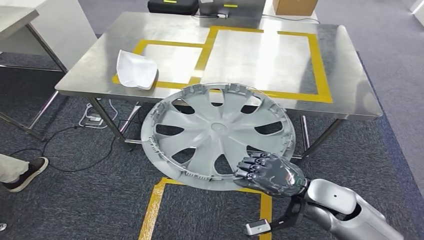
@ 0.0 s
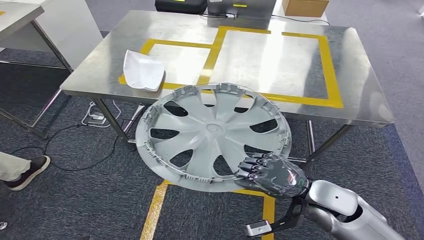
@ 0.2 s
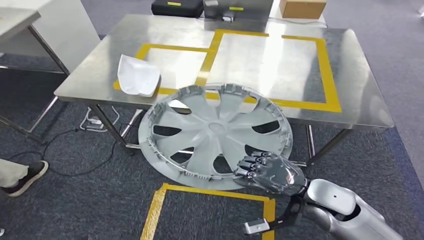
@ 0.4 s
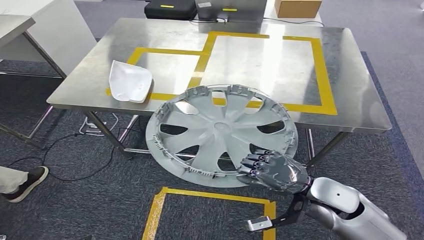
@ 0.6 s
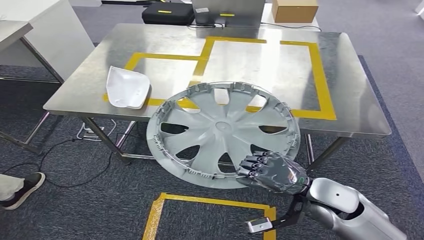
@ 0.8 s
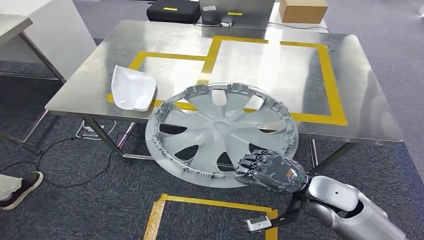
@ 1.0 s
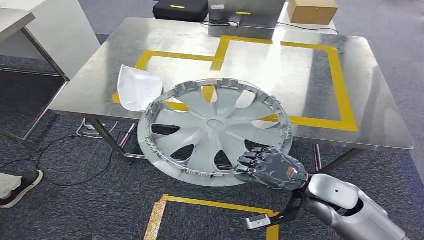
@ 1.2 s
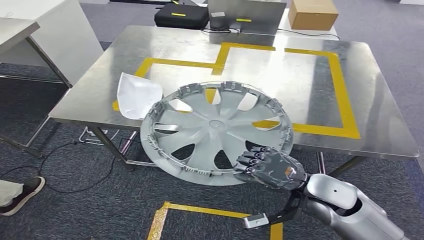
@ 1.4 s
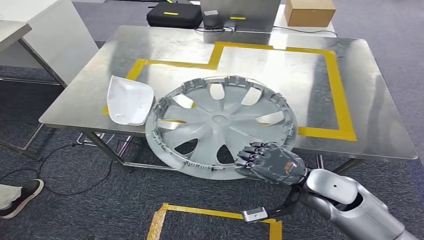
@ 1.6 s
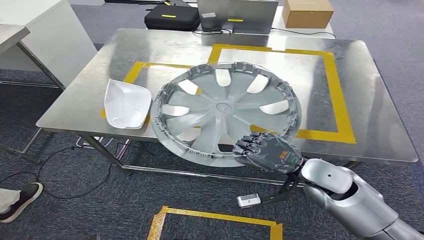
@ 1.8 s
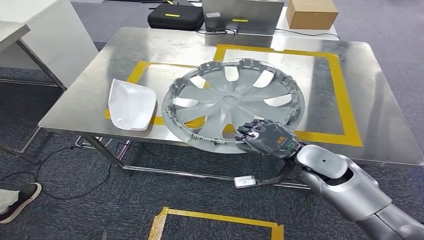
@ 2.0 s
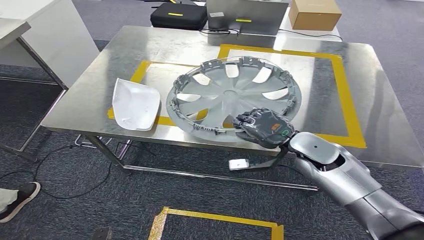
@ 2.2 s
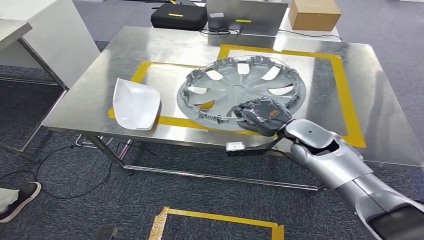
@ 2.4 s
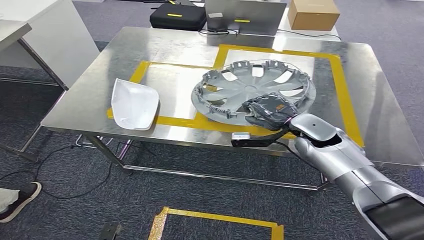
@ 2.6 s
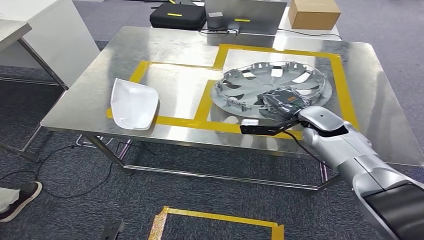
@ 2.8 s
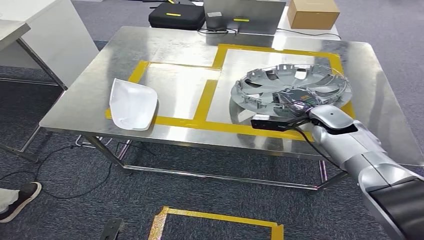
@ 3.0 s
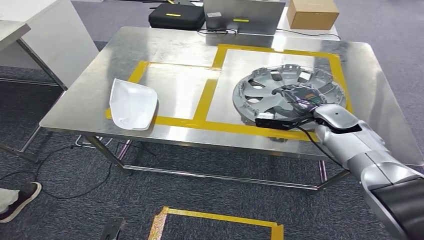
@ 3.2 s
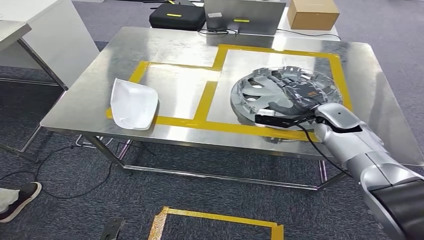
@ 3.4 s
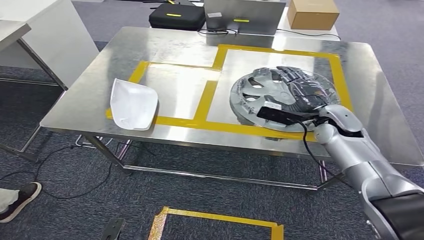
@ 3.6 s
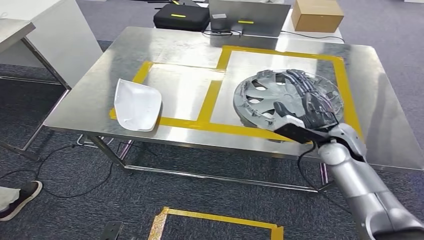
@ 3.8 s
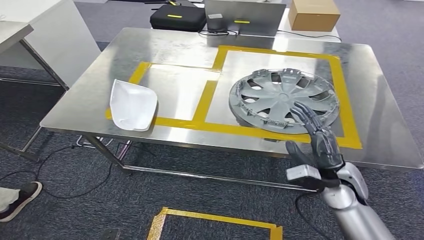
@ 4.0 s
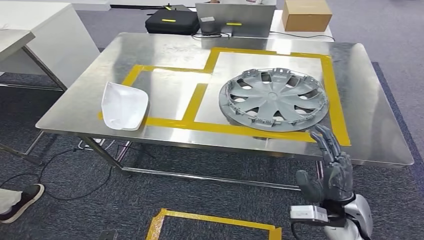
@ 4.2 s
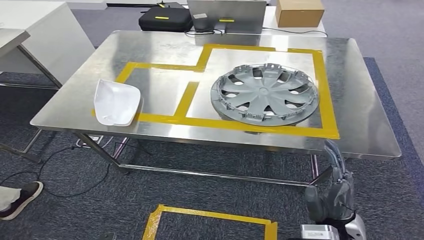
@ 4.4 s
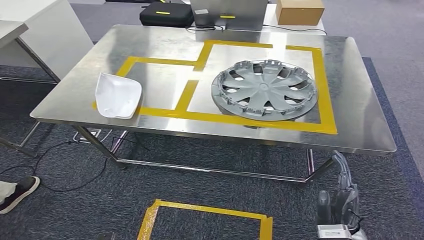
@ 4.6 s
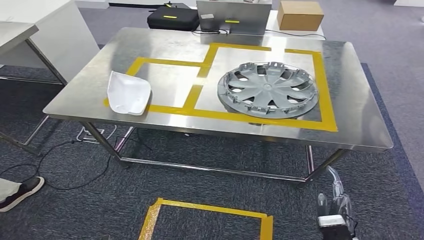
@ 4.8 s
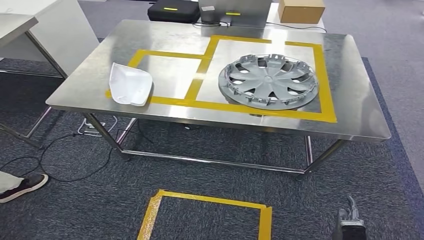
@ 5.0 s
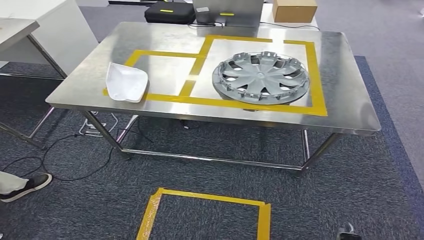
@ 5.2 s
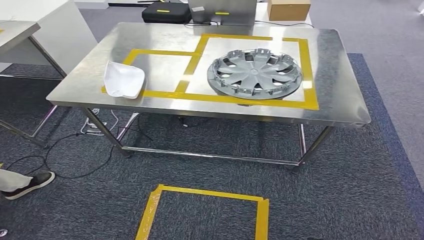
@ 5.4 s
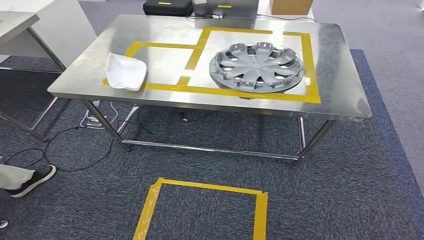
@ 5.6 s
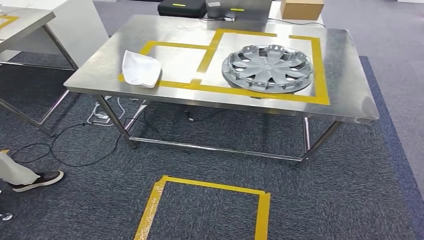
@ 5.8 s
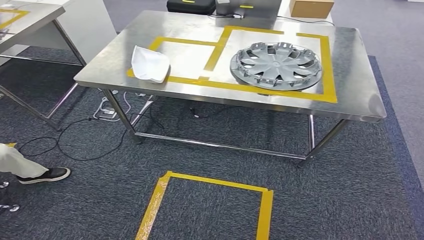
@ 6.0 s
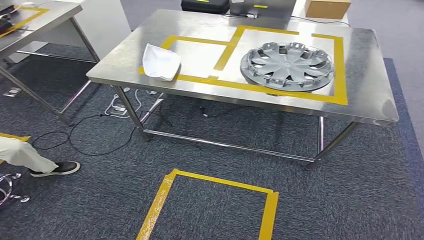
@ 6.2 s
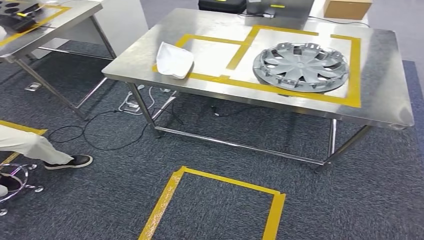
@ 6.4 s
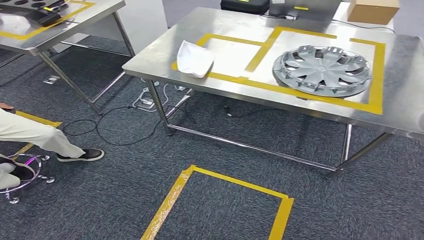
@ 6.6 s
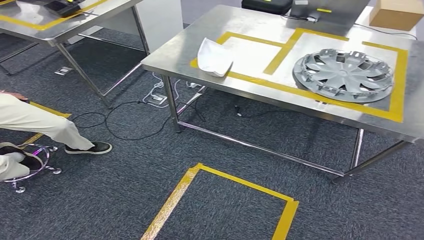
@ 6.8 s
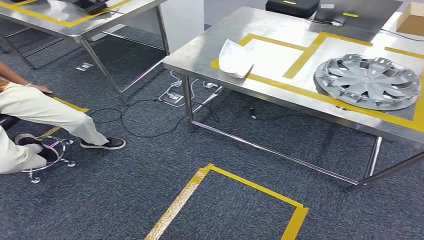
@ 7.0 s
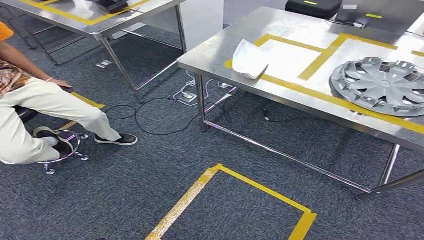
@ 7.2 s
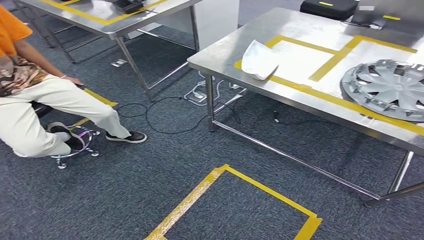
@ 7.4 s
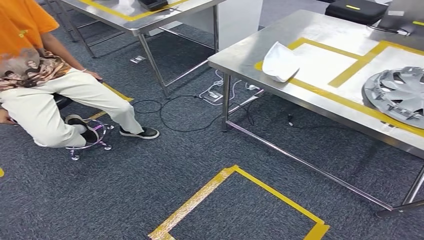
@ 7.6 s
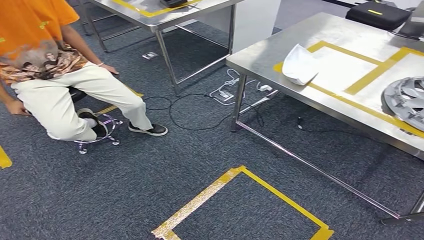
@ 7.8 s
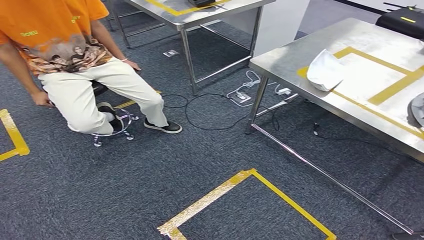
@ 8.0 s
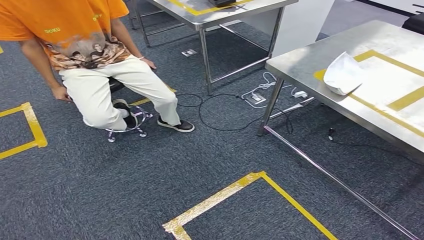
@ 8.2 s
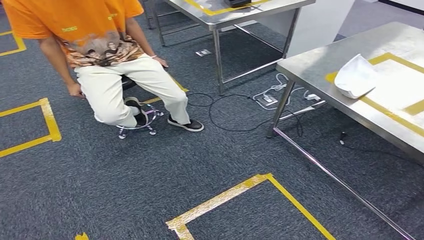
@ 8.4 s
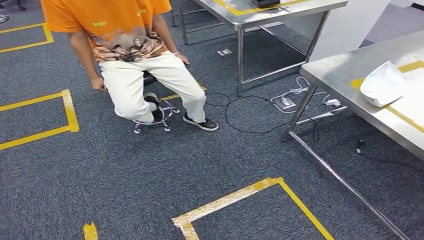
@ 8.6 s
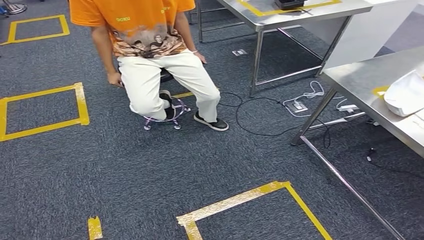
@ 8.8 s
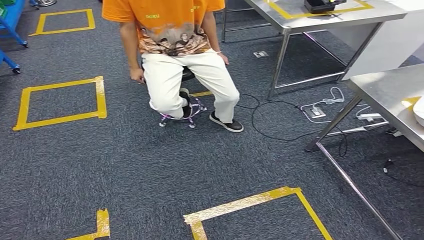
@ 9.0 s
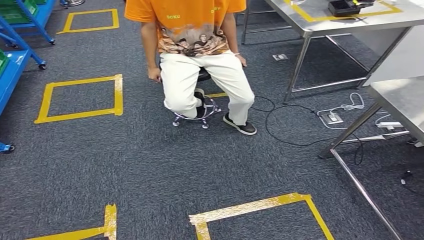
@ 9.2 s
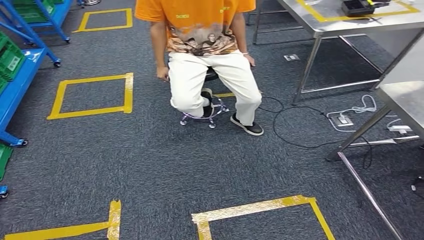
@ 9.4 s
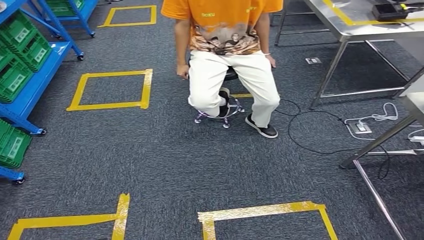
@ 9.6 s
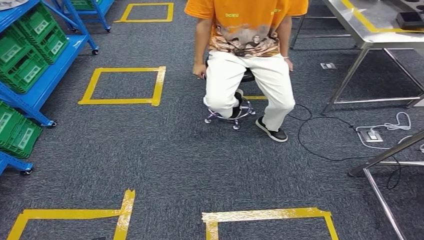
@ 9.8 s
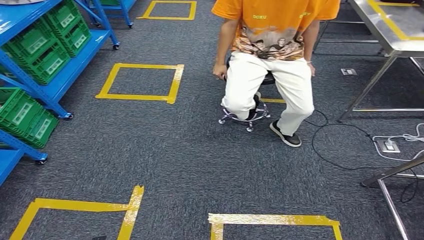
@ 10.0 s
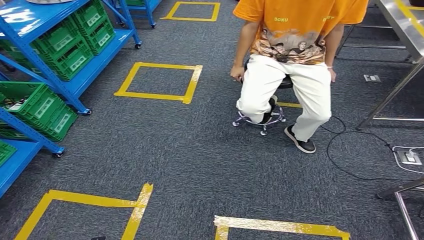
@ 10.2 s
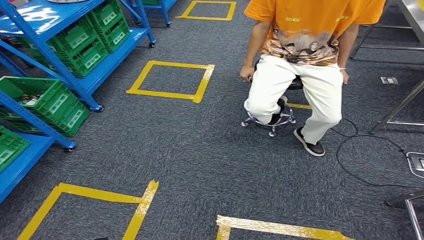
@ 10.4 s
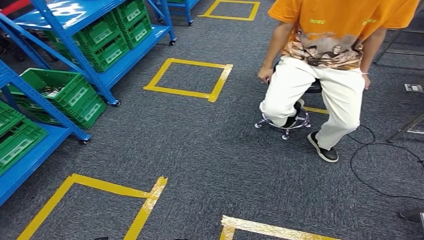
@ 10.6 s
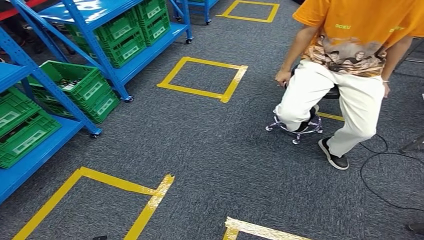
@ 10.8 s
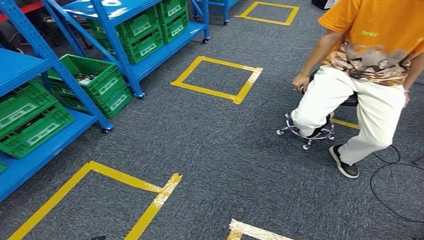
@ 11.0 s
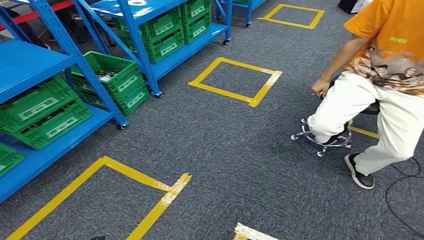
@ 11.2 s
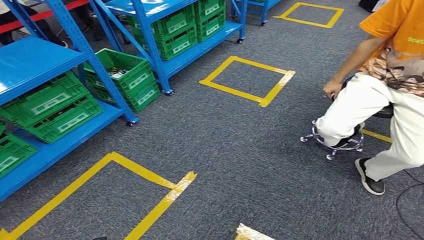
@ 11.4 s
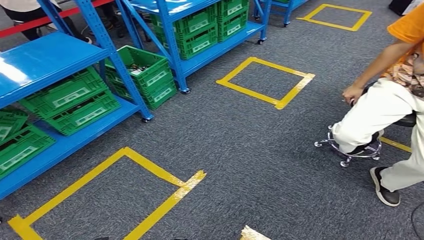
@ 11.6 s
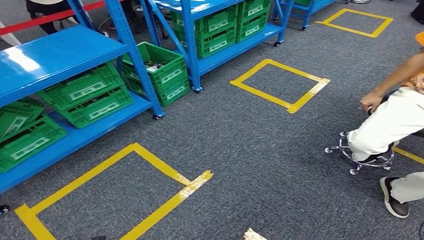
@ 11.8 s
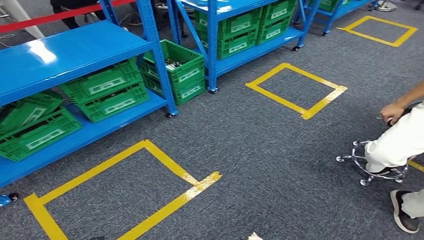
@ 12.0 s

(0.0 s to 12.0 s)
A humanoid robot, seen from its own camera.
Step, 0.0 s - 4.8 s: Insert the small component into the corresponding slot on the workbench.

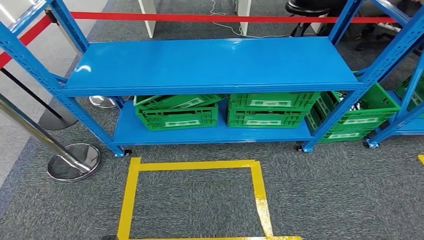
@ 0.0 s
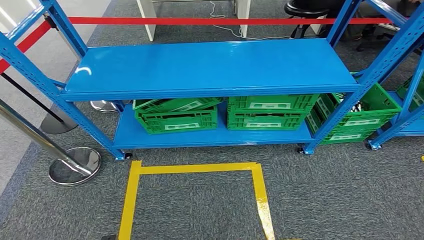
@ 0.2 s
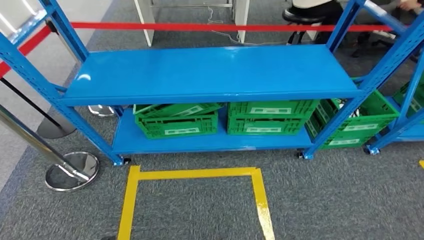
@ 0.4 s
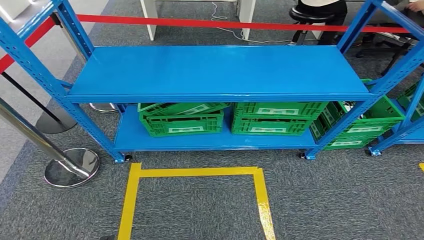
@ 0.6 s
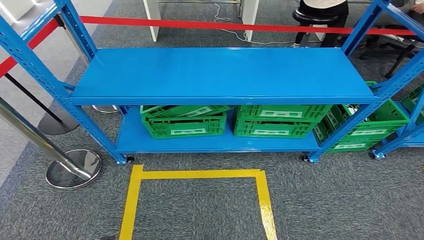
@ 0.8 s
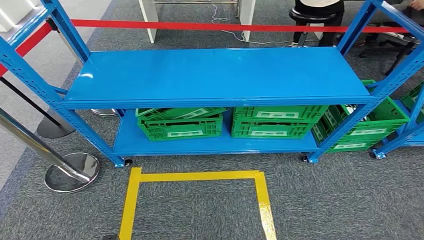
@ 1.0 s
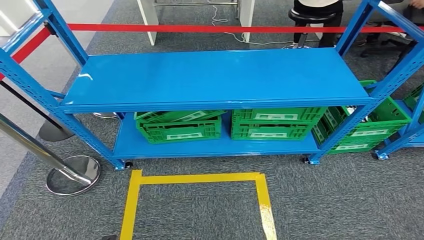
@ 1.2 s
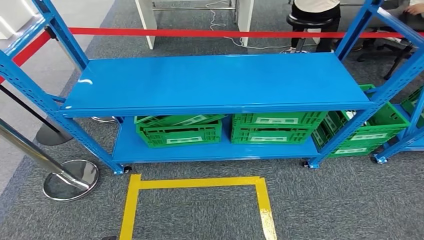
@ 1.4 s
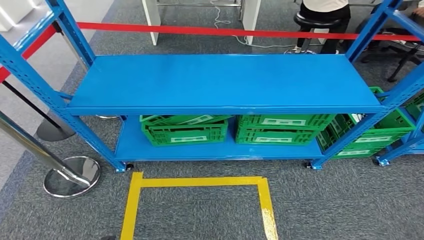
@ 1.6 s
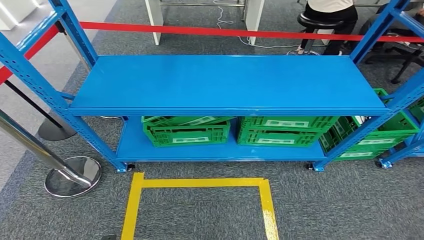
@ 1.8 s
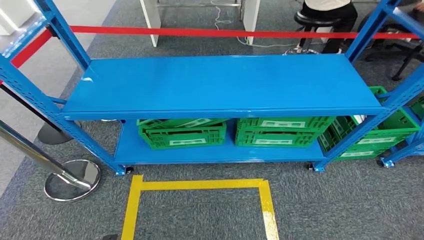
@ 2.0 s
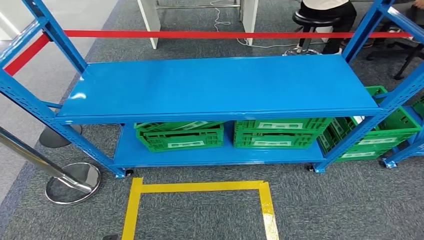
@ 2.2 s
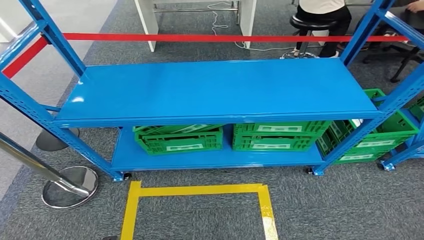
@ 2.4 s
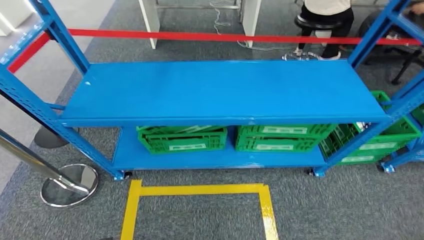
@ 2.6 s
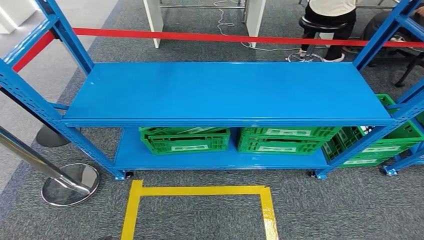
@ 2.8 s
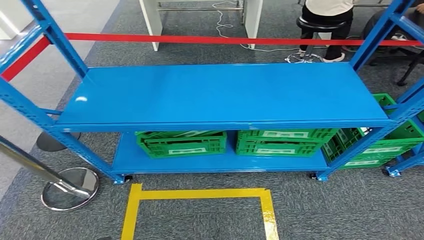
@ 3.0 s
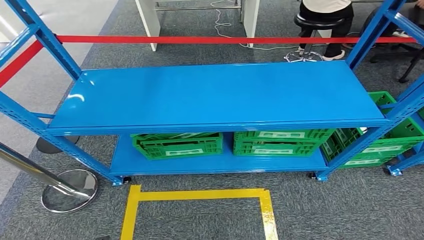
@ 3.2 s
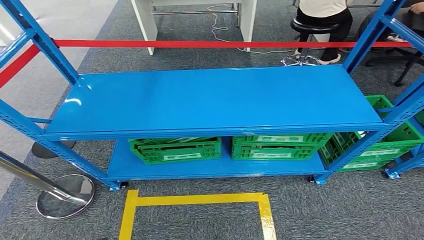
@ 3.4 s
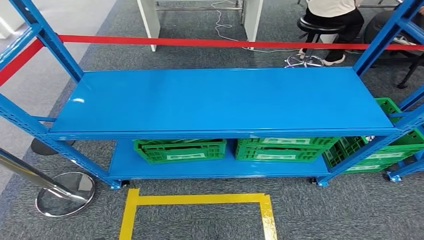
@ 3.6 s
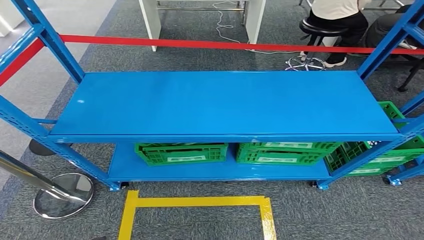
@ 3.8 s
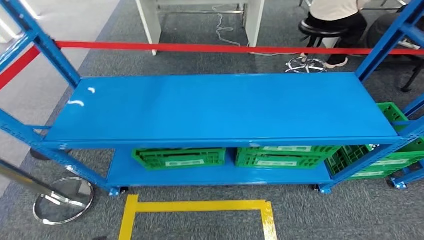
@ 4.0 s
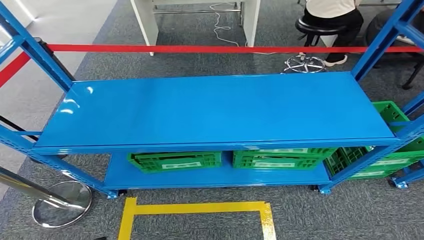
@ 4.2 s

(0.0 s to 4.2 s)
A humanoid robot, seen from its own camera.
Step, 0.0 s - 4.0 s: Return to the initial position at the workbench.

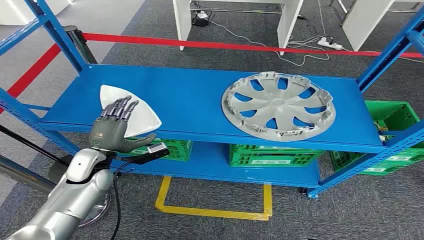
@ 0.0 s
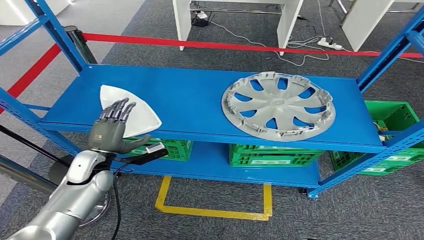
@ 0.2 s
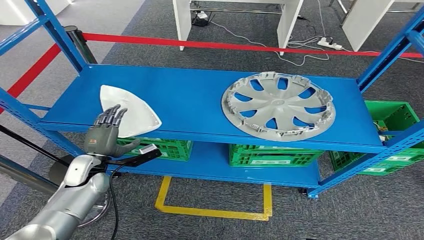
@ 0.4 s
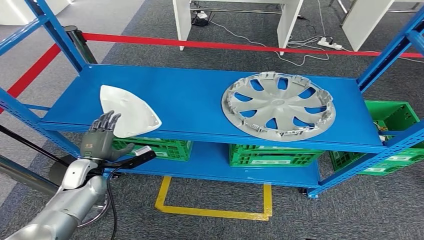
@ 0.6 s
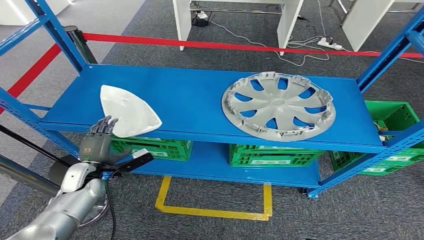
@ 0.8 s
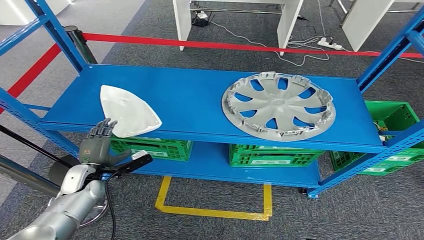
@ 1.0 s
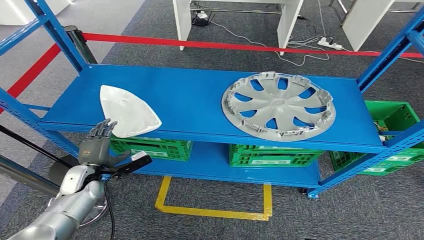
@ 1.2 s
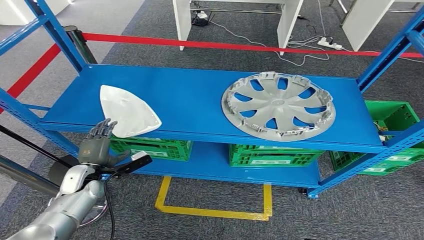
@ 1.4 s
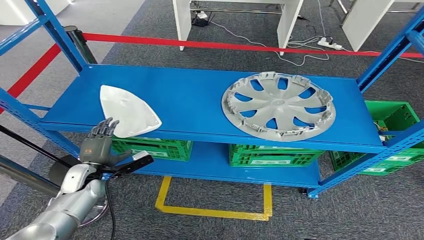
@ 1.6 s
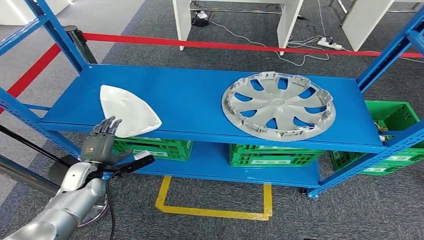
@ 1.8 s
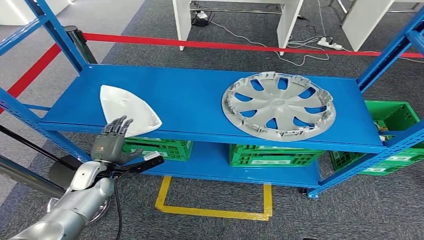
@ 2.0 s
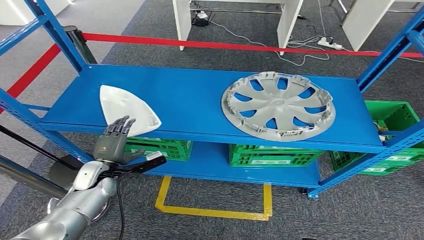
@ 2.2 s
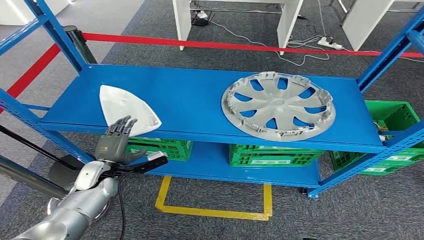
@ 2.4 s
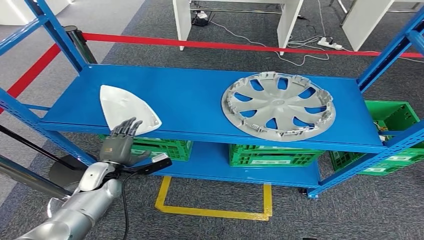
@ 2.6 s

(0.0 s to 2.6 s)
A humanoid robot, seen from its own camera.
1.2 s - 2.6 s: There are only small adjustments of the hands.
